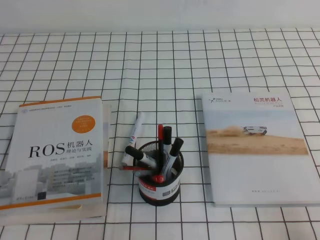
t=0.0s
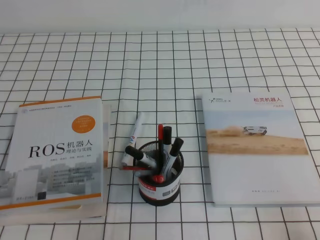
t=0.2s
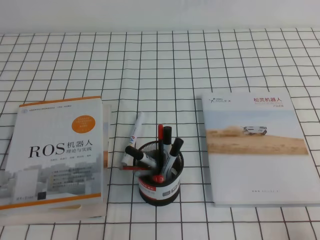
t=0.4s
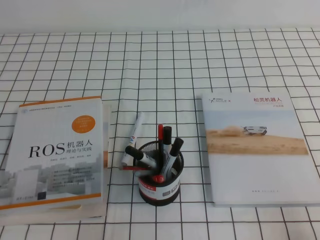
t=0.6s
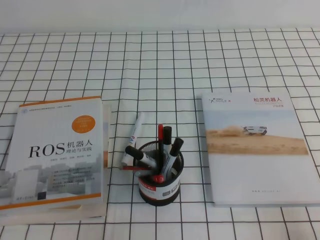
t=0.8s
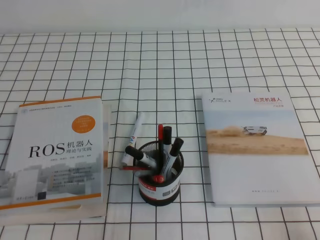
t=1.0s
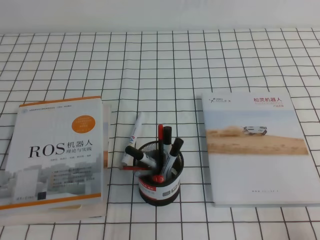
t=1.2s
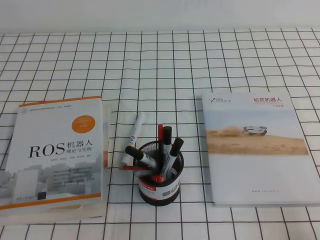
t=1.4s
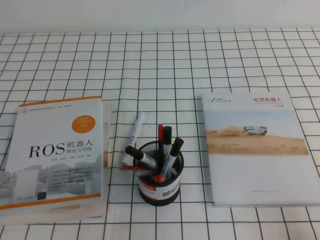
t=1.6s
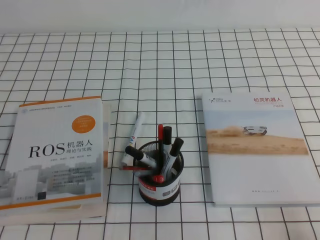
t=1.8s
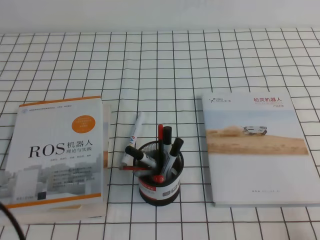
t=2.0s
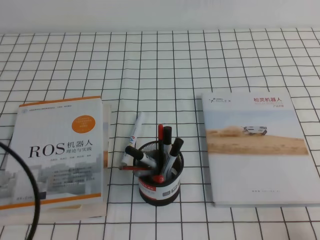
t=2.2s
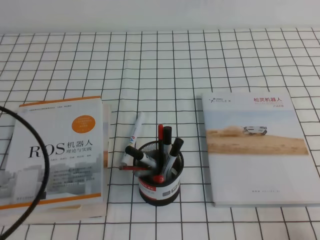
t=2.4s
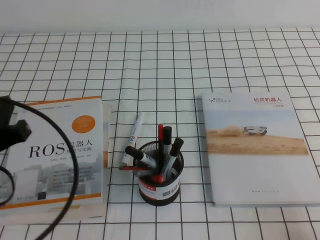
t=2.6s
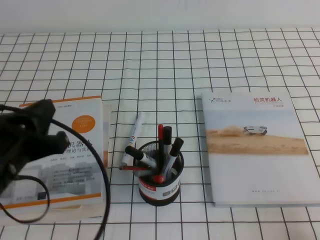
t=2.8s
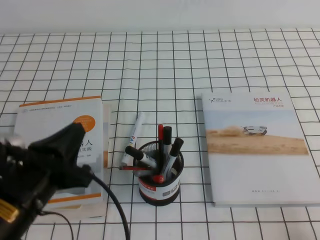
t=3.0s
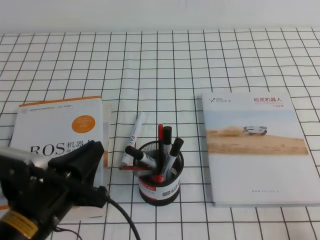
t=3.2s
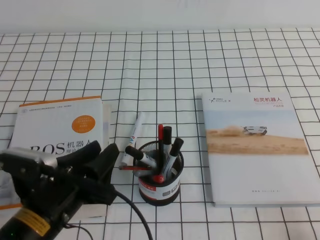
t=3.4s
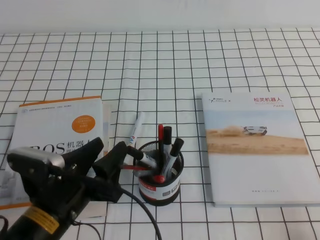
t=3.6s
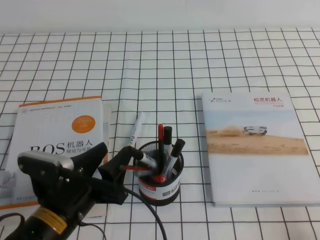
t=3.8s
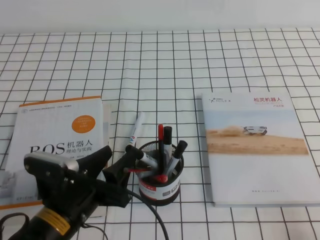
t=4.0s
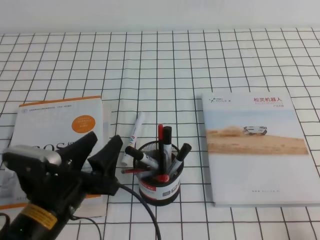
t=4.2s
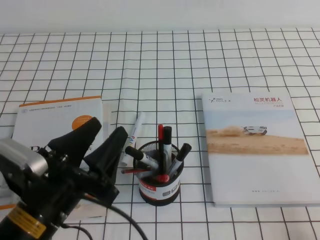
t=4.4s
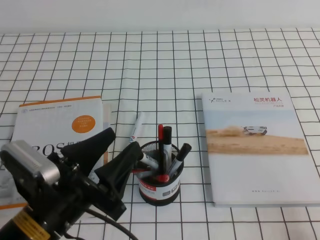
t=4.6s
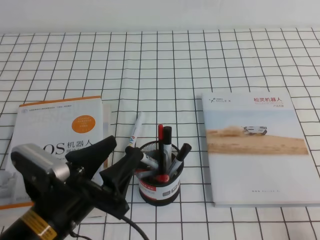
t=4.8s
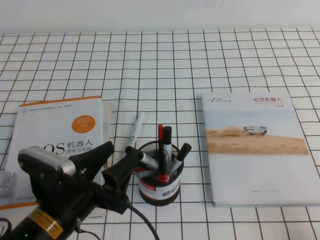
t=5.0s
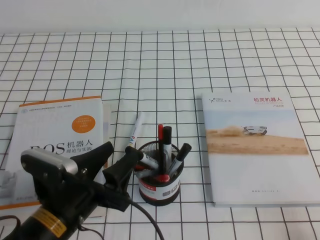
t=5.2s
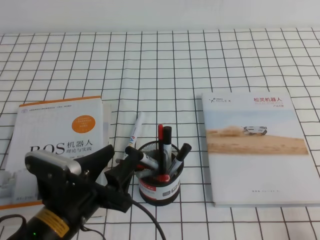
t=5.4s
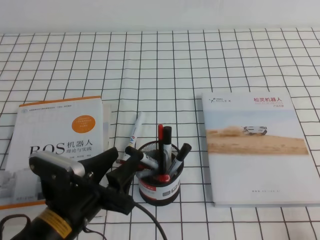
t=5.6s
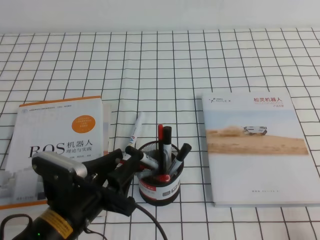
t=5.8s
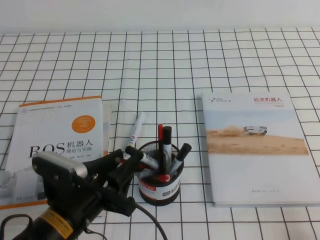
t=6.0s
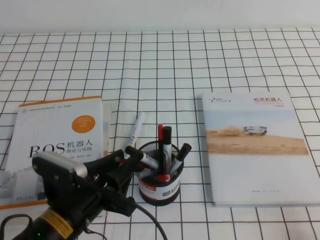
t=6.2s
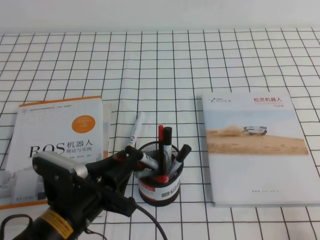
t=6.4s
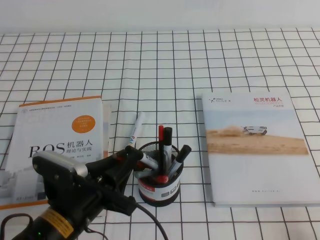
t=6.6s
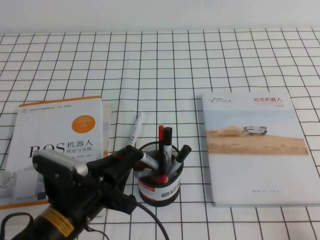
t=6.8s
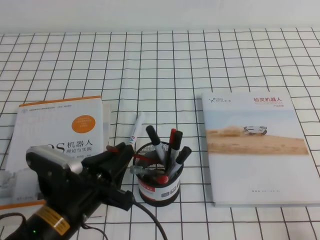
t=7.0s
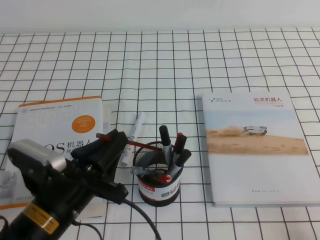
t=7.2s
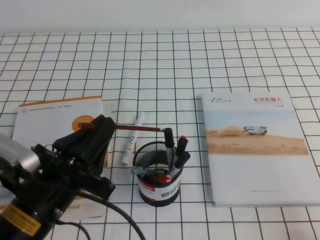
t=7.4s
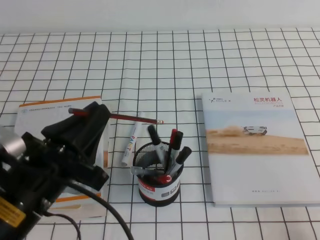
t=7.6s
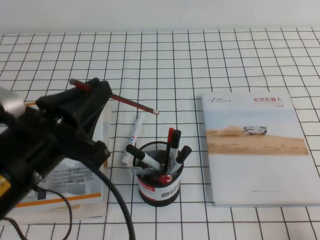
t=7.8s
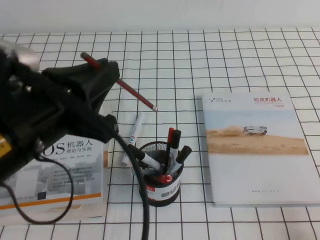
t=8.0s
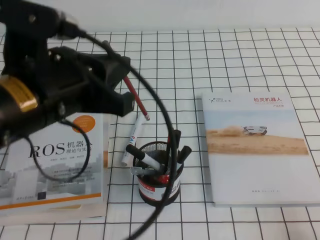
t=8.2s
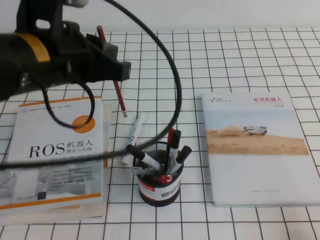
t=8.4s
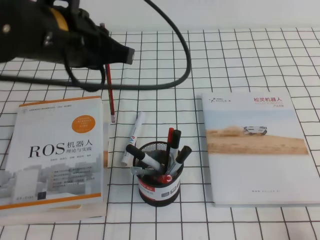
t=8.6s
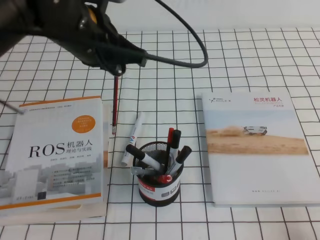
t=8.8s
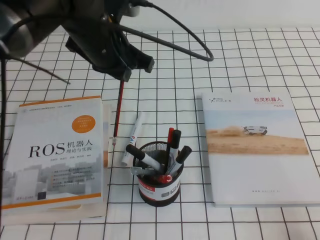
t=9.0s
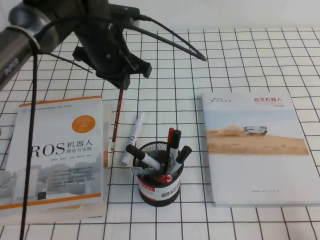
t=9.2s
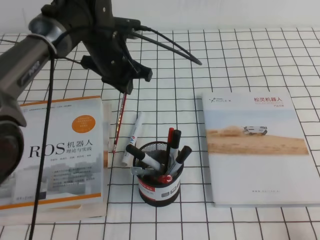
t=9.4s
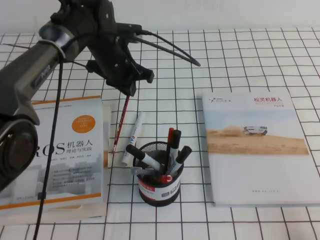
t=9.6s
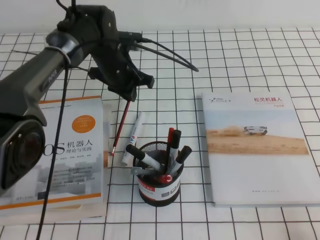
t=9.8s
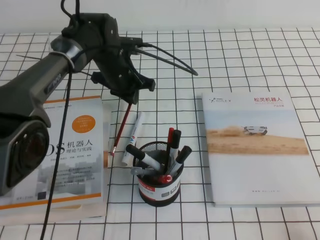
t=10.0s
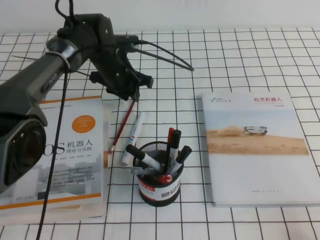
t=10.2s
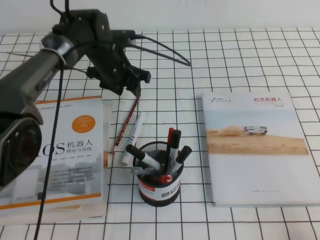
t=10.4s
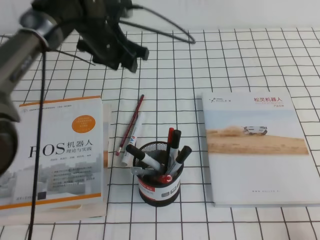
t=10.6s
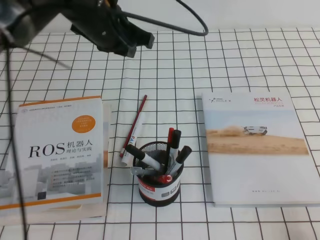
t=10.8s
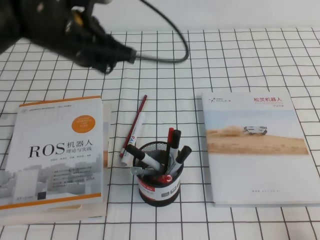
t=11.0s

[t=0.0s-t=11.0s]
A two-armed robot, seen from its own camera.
t=1.6s to t=3.2s: The left gripper goes about 15 cm to the right and forward.
t=3.2s to t=4.8s: The left gripper opens.
t=4.8s to t=6.2s: The left gripper closes.
t=6.2s to t=7.8s: The left gripper shifts approximately 15 cm upward, and closes its fingers.
t=7.8s to t=9.4s: The left gripper heads forward, covering about 25 cm.
t=9.4s to t=11.0s: The left gripper shifts approximately 10 cm backward and upward, and opens, then closes again.

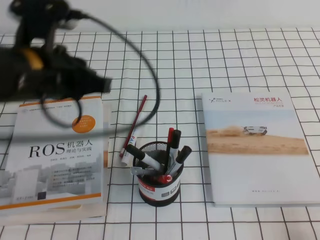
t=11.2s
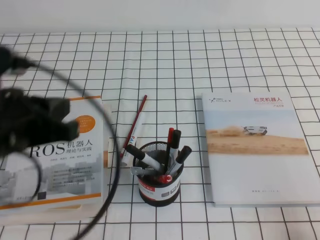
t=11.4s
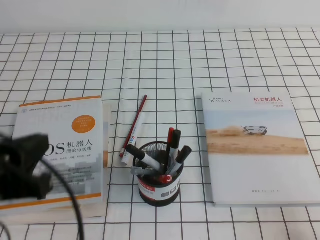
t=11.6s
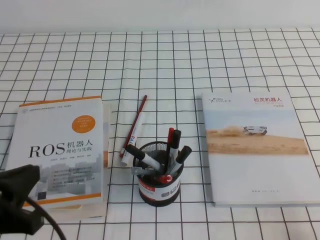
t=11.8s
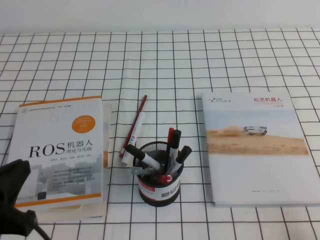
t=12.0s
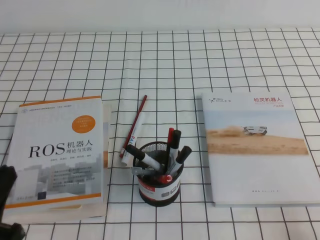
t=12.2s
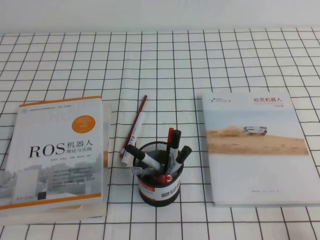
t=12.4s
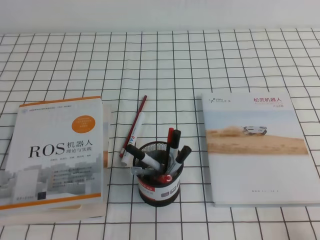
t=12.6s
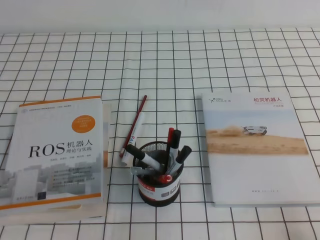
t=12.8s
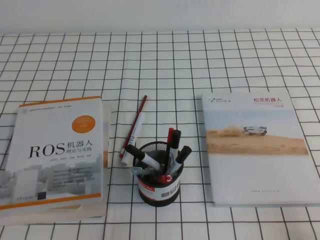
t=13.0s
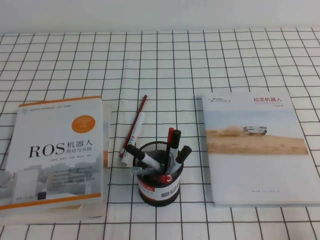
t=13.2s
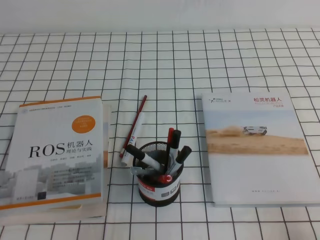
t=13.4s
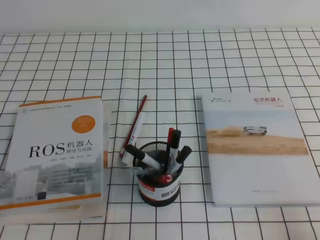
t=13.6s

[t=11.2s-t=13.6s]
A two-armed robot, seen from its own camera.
Step, t=11.2s to t=13.6s: Pick up the pen from the pen holder.
t=11.2s to t=12.4s: The left gripper moves backward, to the left and downward, some 25 cm.
t=12.4s to t=13.6s: The left gripper shifts about 5 cm downward.
